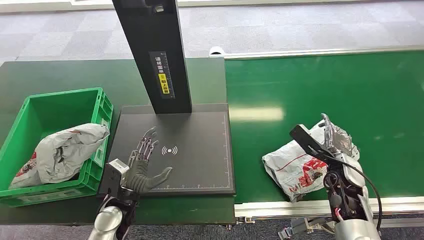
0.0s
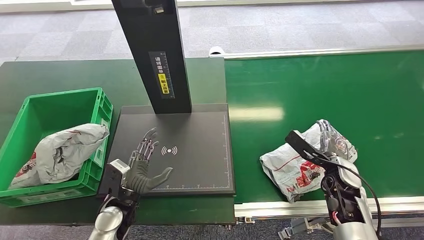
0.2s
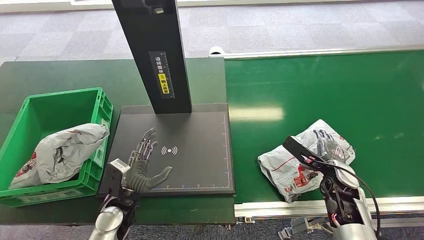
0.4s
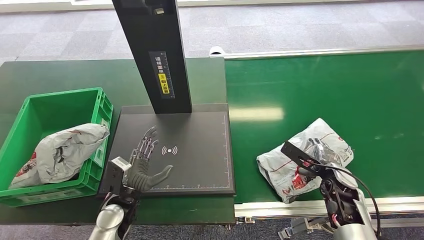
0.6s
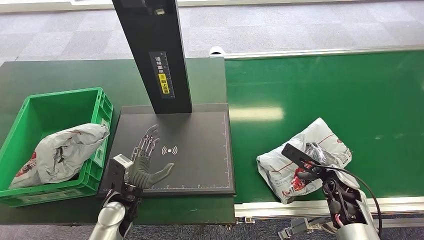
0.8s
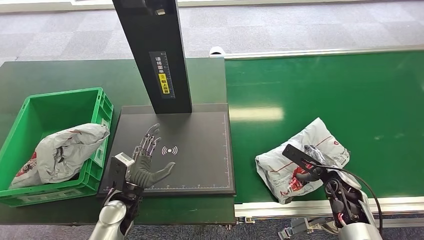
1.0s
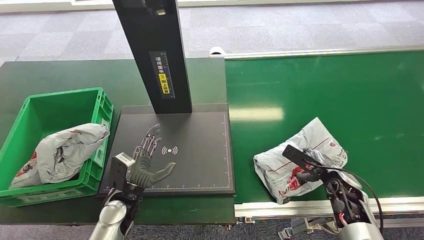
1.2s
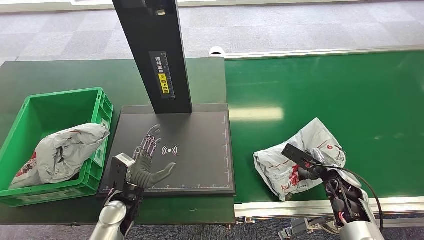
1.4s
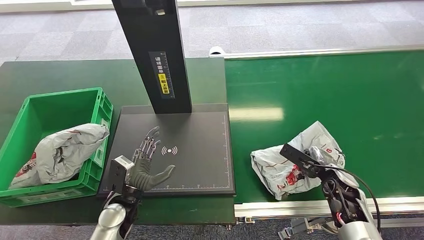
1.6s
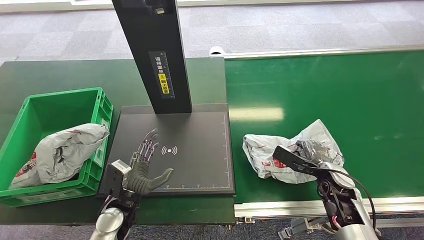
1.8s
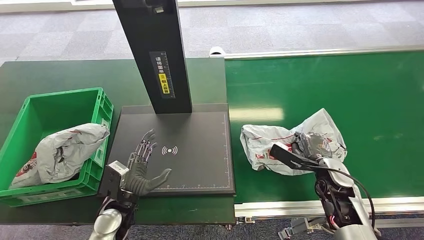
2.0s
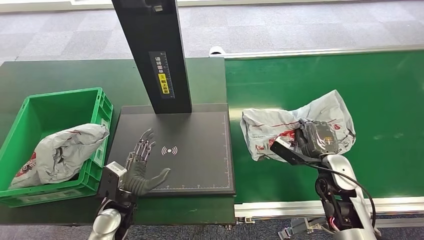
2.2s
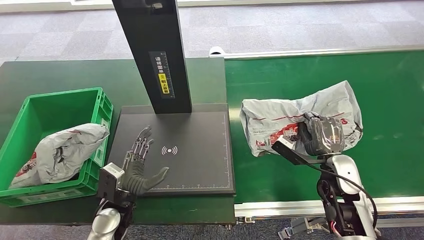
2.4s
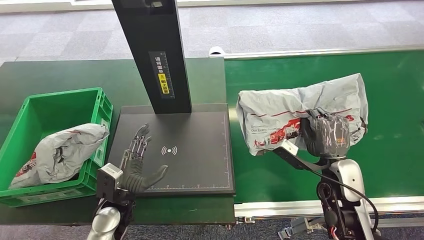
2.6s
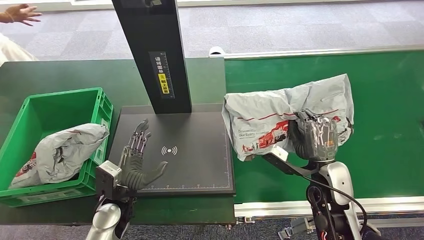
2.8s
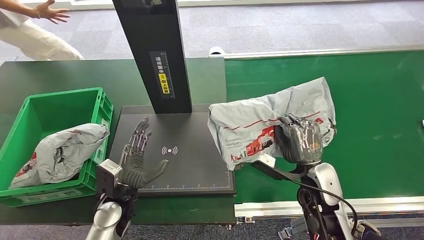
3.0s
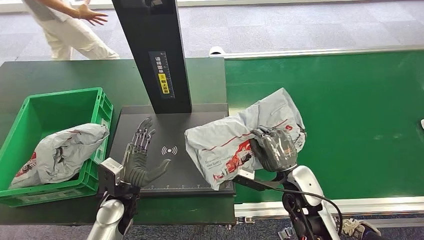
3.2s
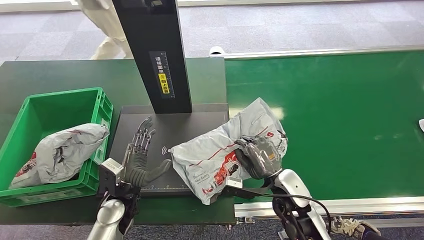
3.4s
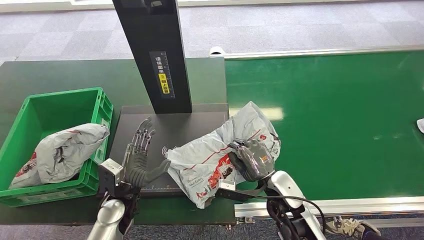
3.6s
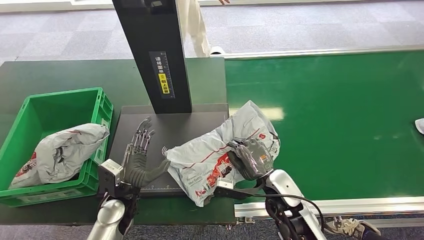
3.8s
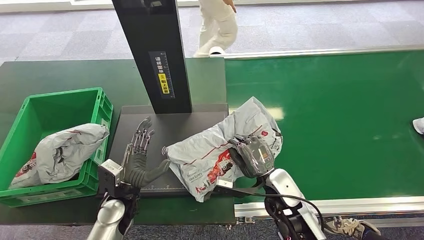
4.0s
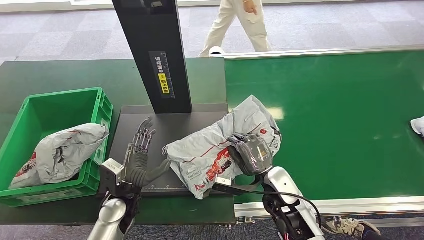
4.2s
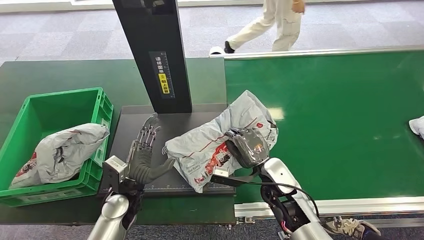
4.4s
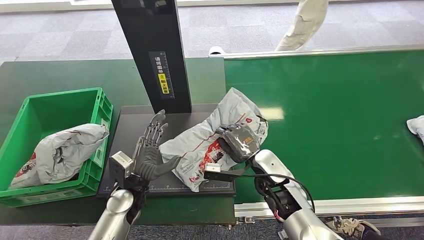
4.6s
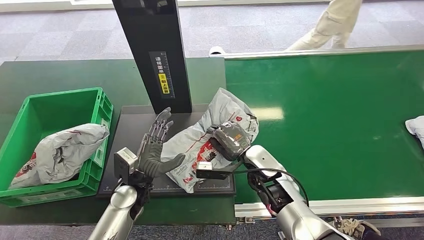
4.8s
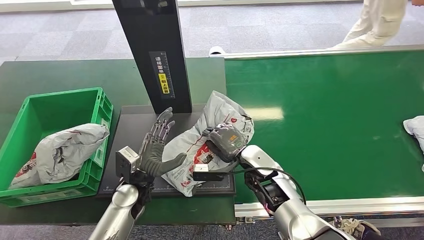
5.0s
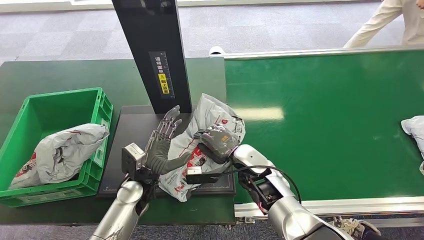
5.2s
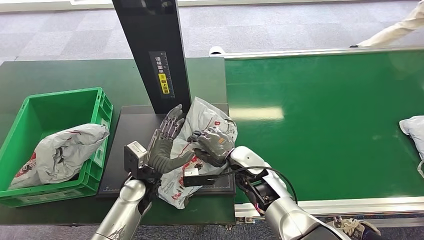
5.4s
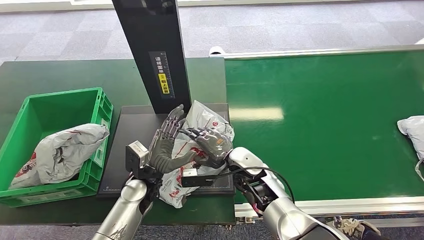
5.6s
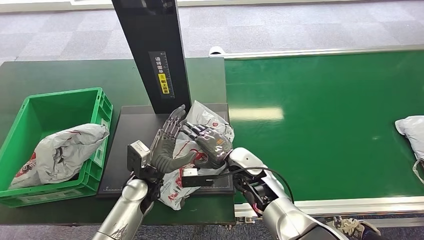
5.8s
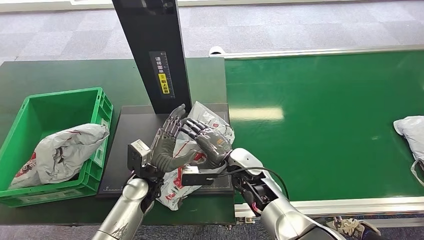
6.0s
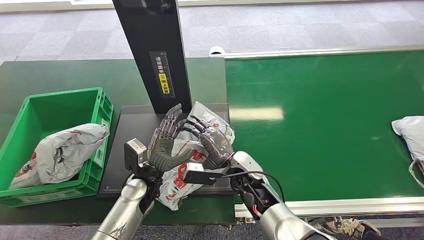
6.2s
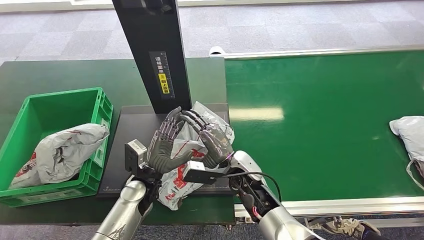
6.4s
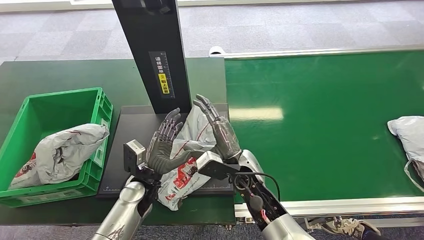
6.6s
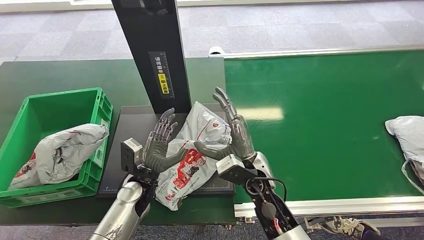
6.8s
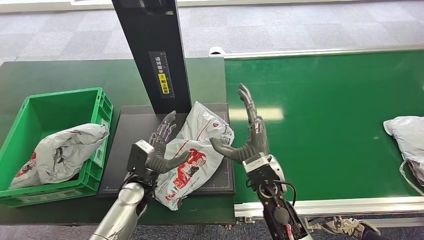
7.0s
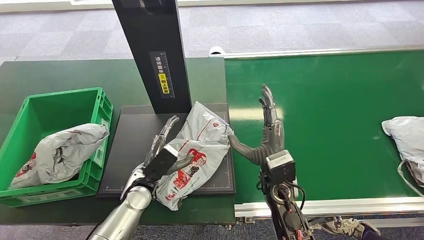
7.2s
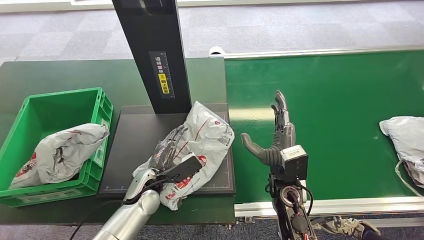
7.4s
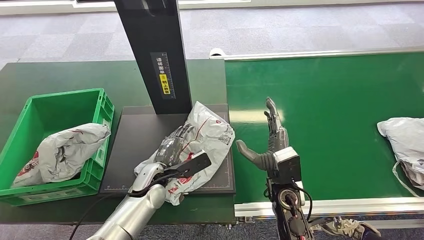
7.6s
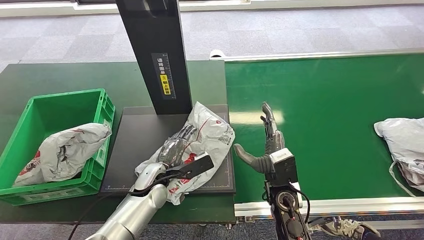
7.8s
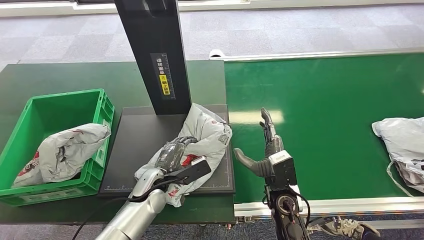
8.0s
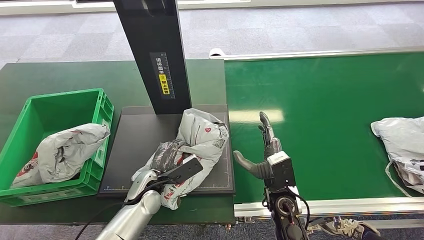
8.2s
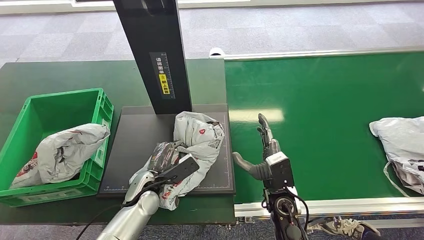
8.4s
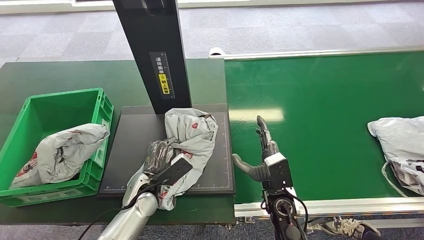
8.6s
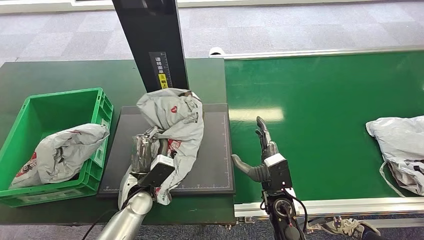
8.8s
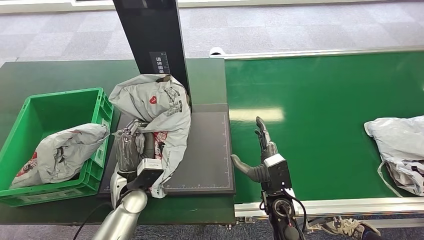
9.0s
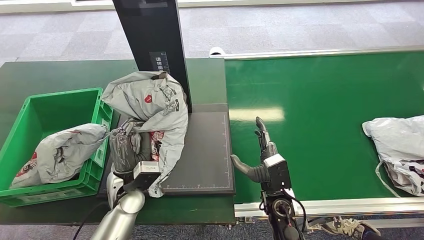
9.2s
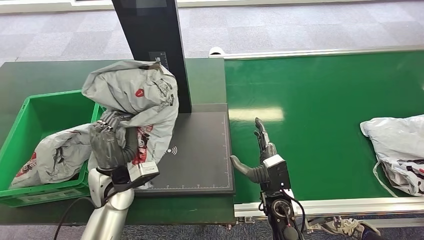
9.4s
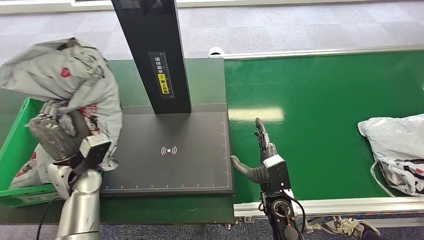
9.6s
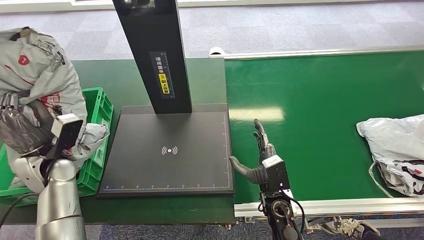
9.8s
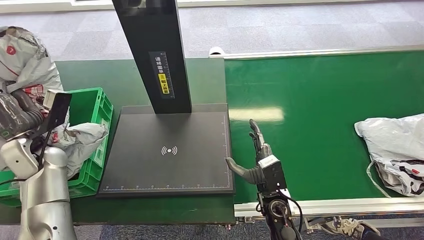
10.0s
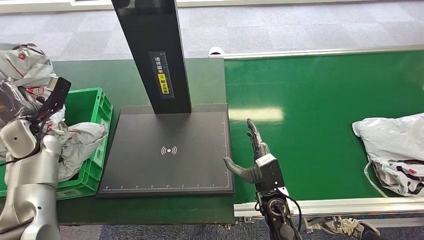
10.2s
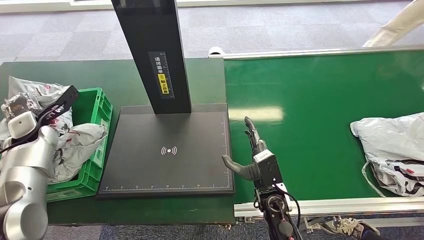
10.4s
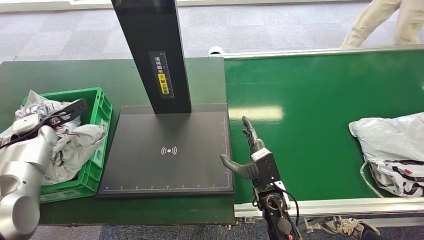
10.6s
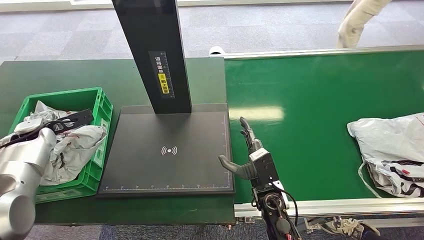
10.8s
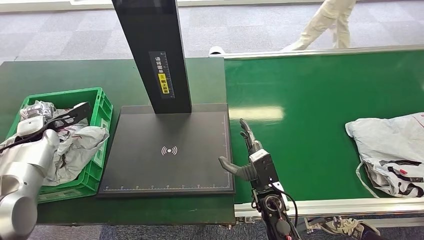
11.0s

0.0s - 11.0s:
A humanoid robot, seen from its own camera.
Step, 0.0s - 2.0s: Pick up the package from the conveyor belt.
Step, 2.2s - 6.2s: Place the package onto the inbound machine.
Step, 6.6s - 8.8s: Pick up the package from the inbound machine.
Step, 9.0s - 11.0s: Place the package into the parcel locker.
4.8s - 6.2s: The right hand moves about 5 cm.
